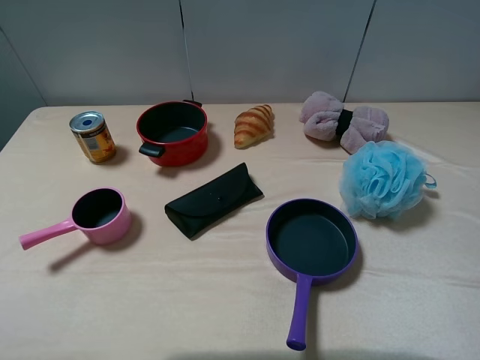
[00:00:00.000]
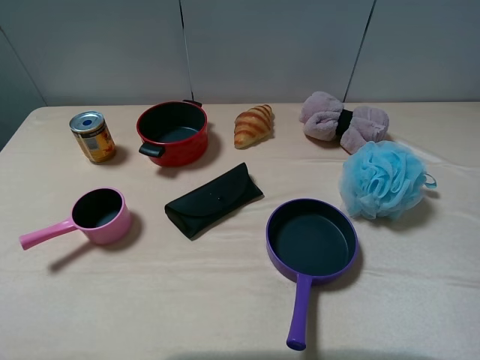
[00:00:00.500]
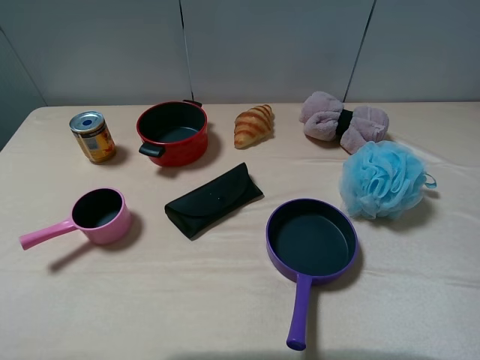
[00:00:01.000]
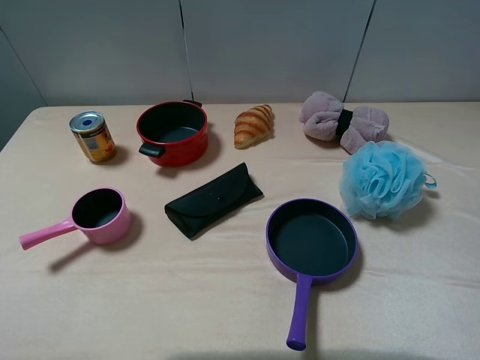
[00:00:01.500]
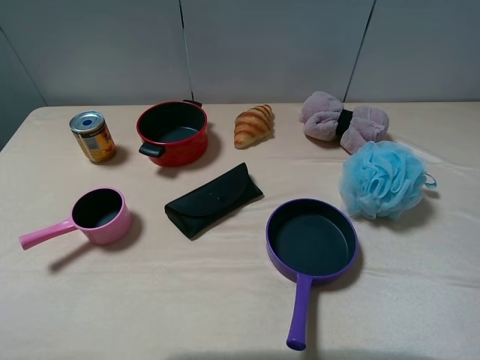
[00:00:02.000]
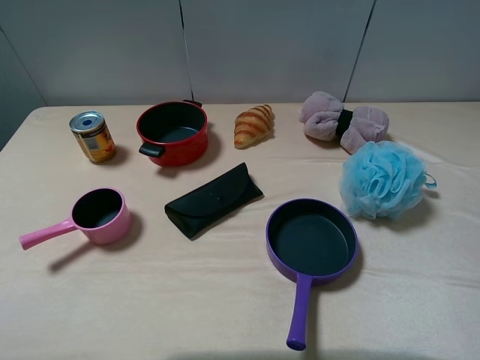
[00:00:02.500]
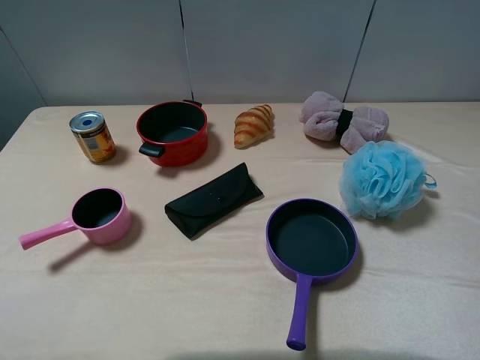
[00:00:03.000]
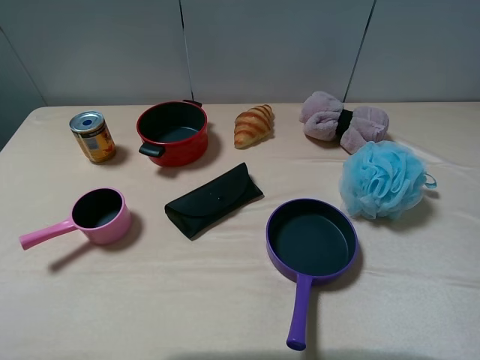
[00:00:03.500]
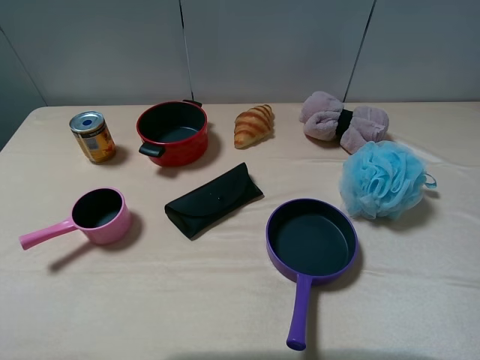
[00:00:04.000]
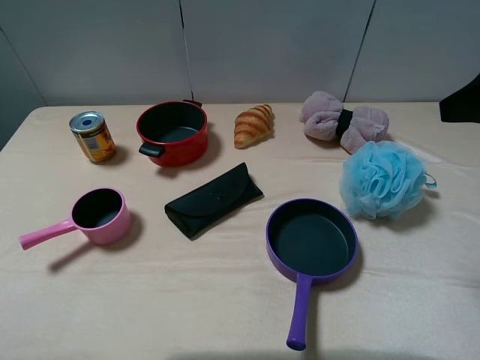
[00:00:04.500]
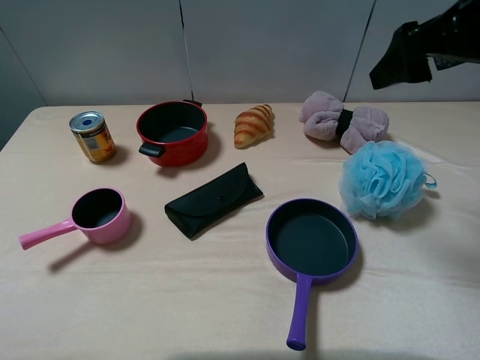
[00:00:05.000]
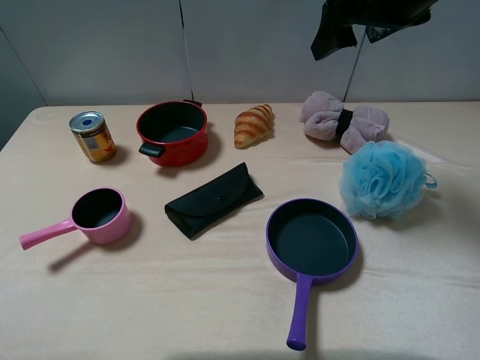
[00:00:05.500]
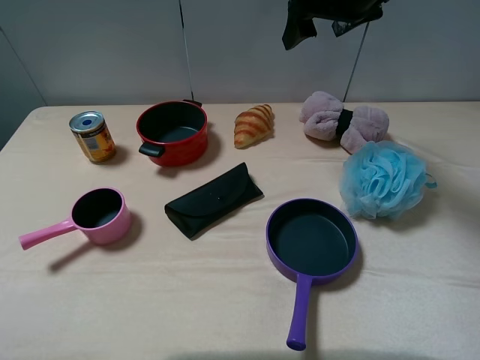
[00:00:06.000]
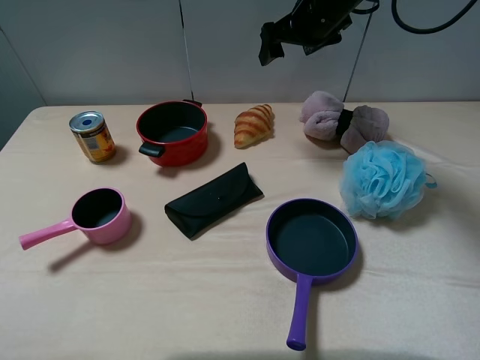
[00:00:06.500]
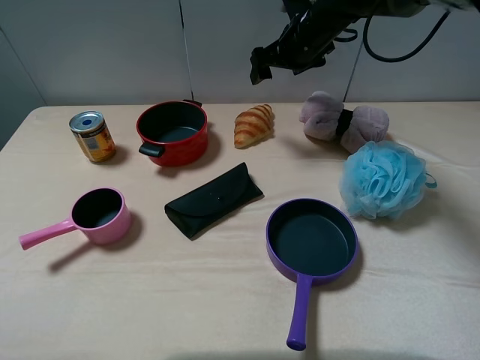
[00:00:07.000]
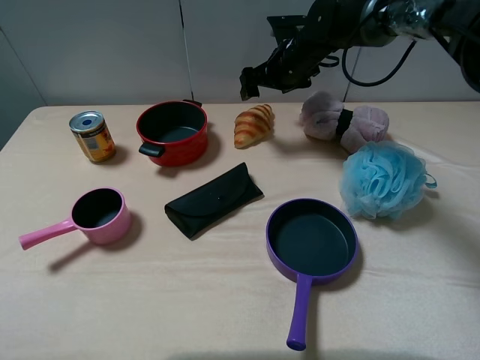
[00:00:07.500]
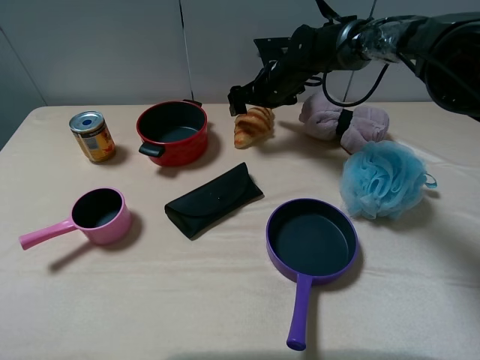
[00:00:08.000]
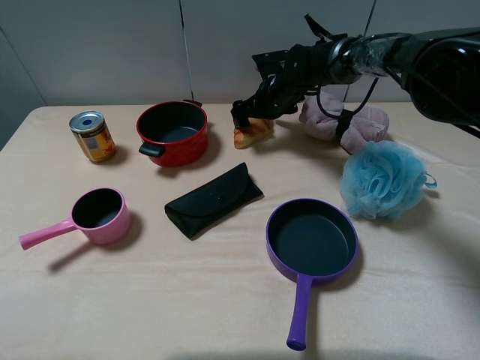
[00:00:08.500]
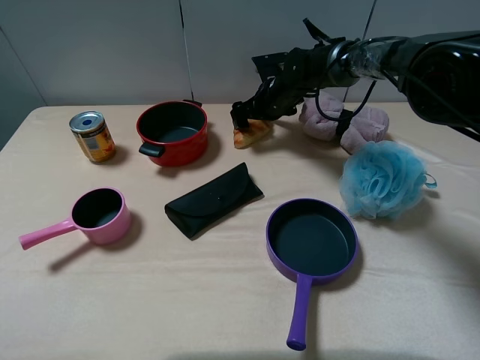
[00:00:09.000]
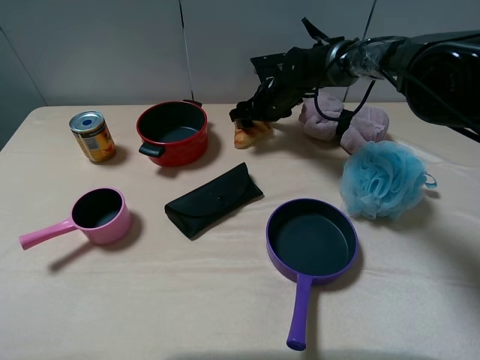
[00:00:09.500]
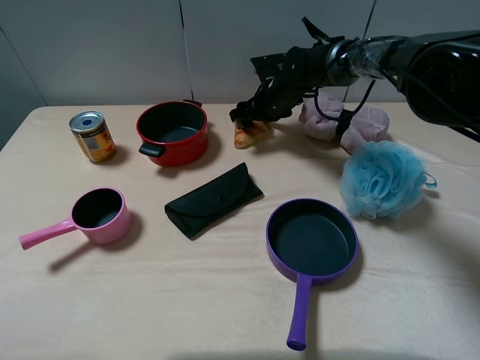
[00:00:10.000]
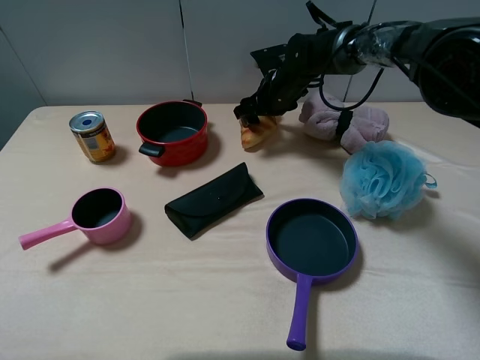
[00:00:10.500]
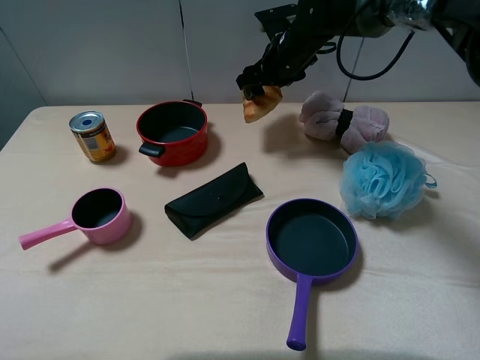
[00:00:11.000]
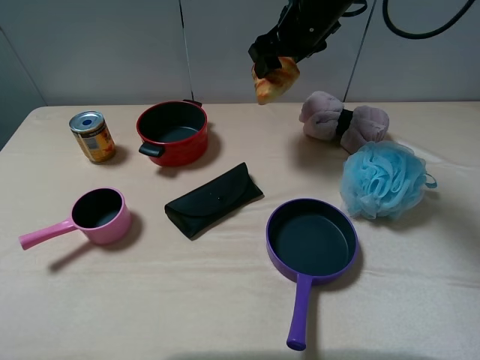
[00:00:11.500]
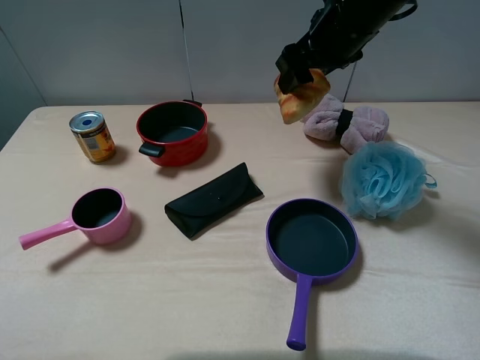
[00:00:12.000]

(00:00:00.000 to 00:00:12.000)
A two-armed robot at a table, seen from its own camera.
Task of the whole recording: pick up an item with a gripper and place it in a random container on the table.
Step, 00:00:00.000 - 00:00:09.500: Grasp the croissant with the right gripper.
00:00:00.000 - 00:00:02.000: Both grippers stay put.
00:00:04.000 - 00:00:06.000: The right gripper travels forward and to the left by about 35 cm.
00:00:06.000 - 00:00:08.000: The right gripper shifts roughly 20 cm downward.
00:00:08.000 - 00:00:10.000: The right gripper closes.
00:00:10.000 - 00:00:12.000: The right gripper moves upward and backward, approximately 20 cm.

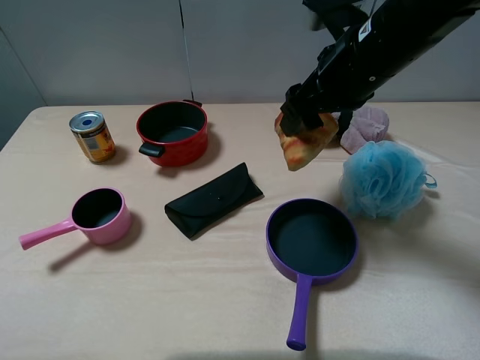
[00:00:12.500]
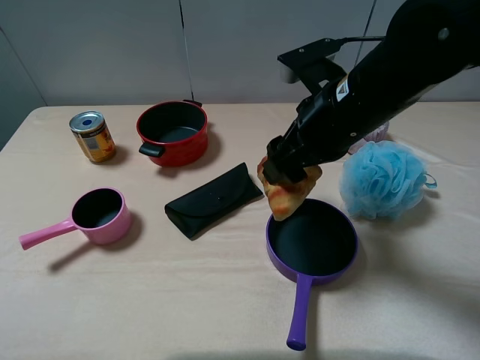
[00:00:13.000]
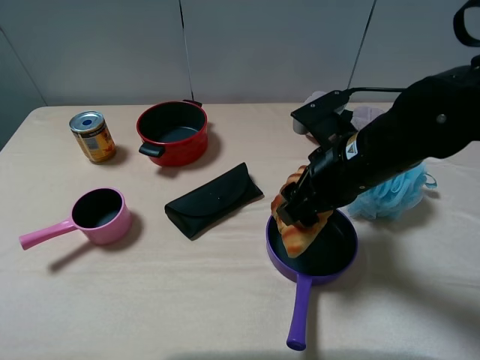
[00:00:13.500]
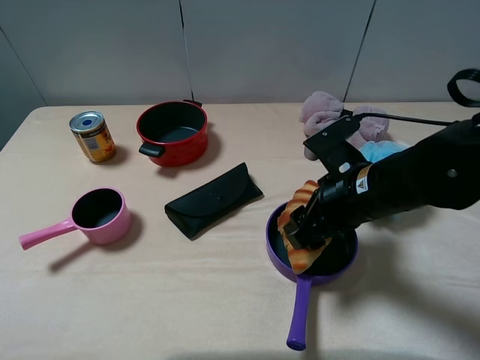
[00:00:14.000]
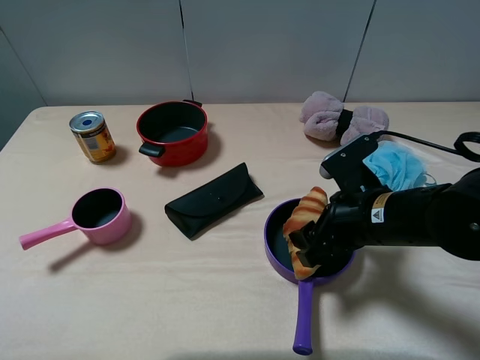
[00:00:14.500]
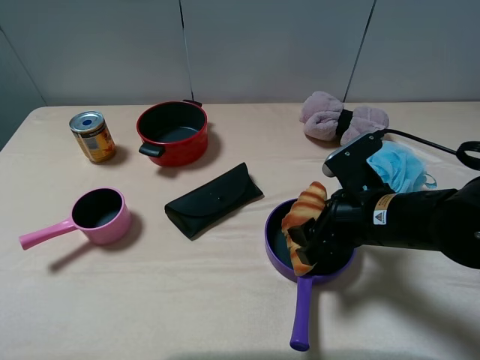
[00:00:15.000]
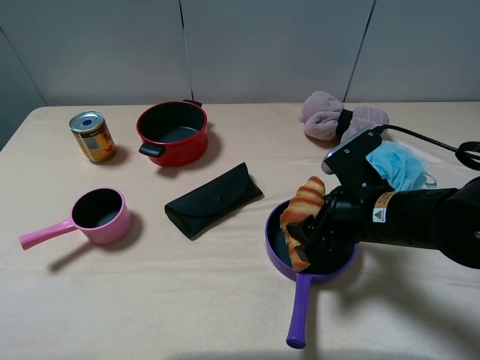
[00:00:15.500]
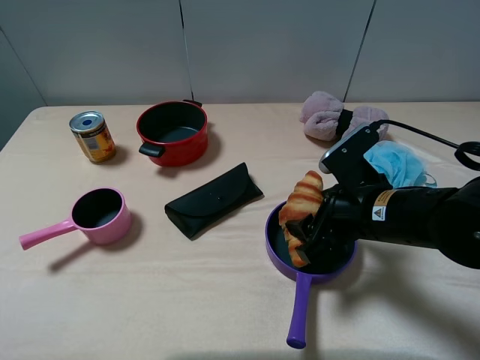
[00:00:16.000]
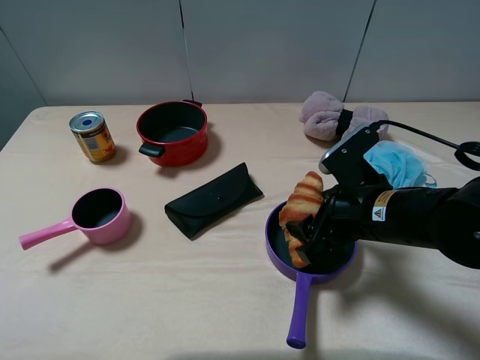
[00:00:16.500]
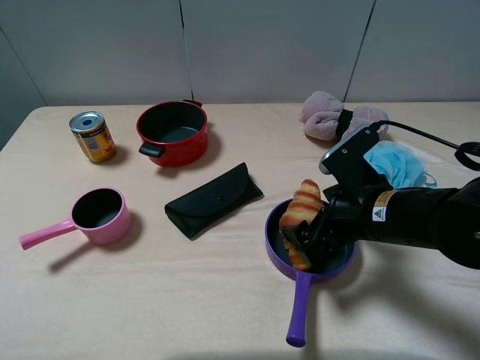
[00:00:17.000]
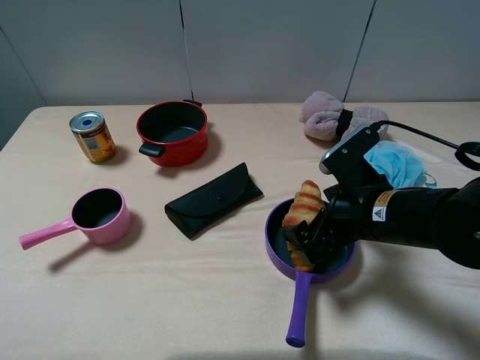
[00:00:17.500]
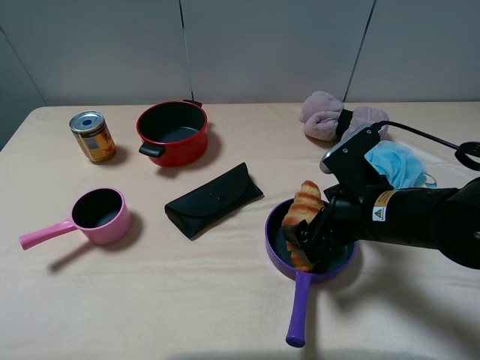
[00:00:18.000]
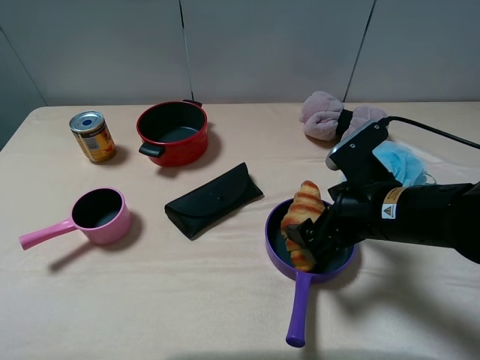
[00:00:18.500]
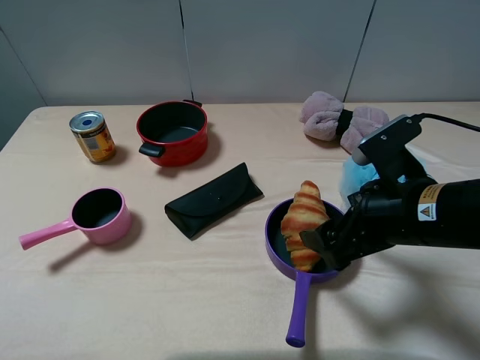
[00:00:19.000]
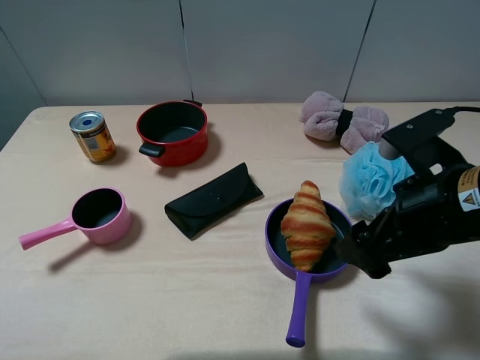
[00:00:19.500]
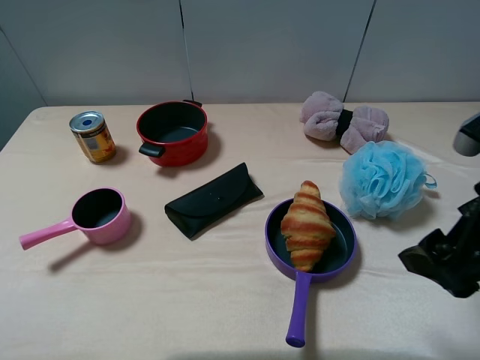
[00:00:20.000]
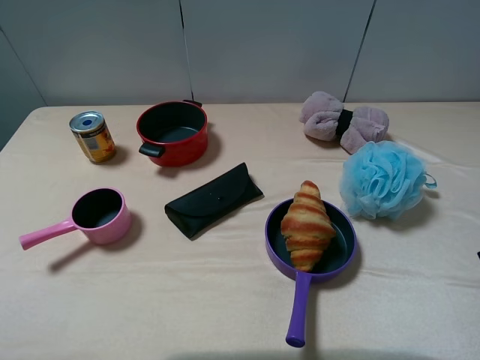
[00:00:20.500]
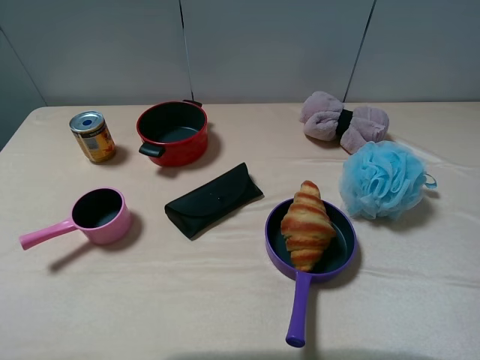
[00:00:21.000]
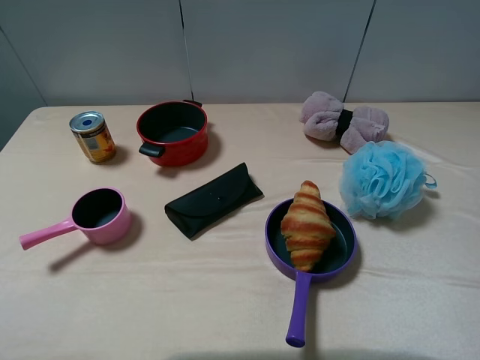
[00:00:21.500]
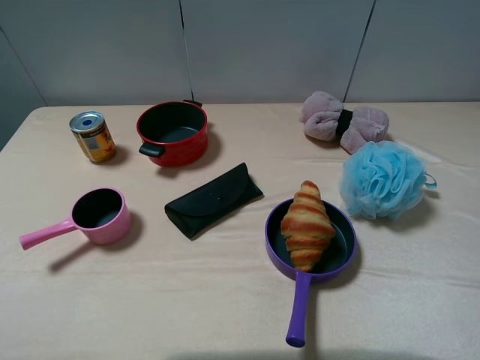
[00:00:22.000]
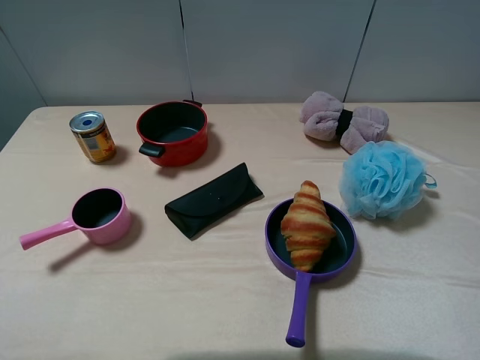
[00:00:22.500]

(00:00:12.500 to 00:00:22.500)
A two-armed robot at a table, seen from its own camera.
Task of the whole recording: pick up an item with a gripper and place it in a random container on the table.
Step, 00:00:12.500 - 00:00:18.000: Place the croissant into the purple pot with the right gripper.
00:00:12.500 - 00:00:14.500: The right gripper moves downward and backward, roughly 15 cm.
00:00:14.500 - 00:00:16.500: There are only small adjustments of the grippers.
00:00:16.500 - 00:00:18.500: The right gripper opens its fingers.
00:00:18.500 - 00:00:20.500: The right gripper heads upward, to the right and backward, covering about 20 cm.
